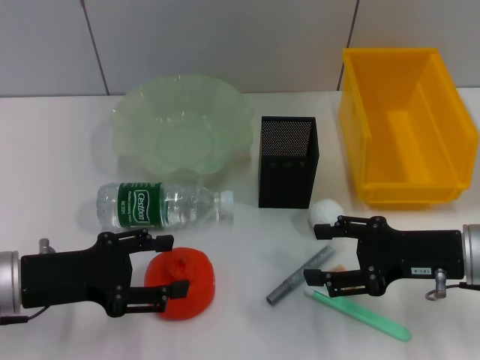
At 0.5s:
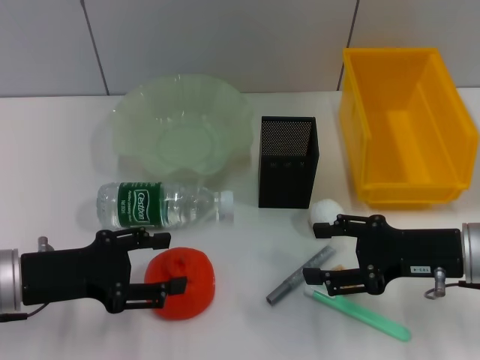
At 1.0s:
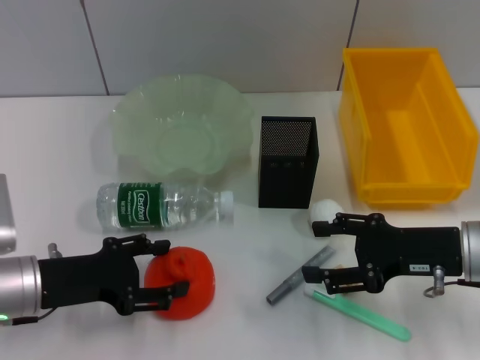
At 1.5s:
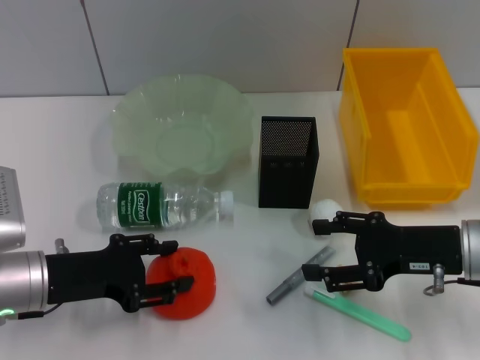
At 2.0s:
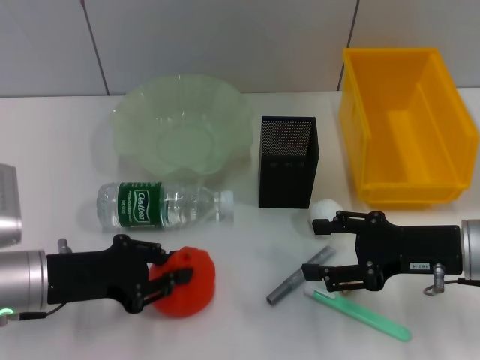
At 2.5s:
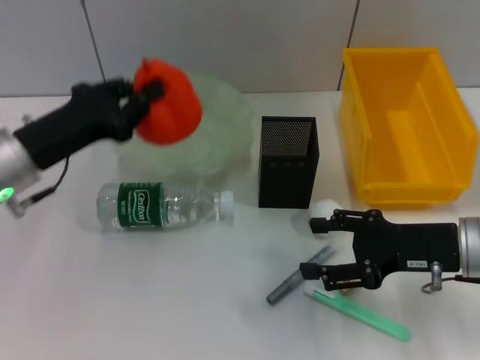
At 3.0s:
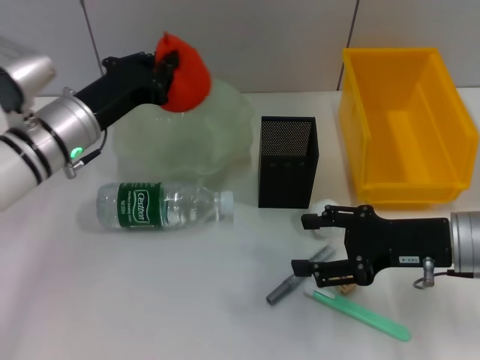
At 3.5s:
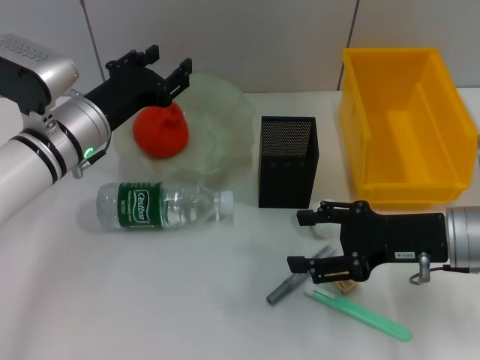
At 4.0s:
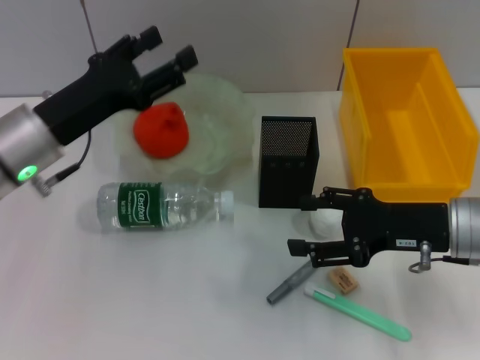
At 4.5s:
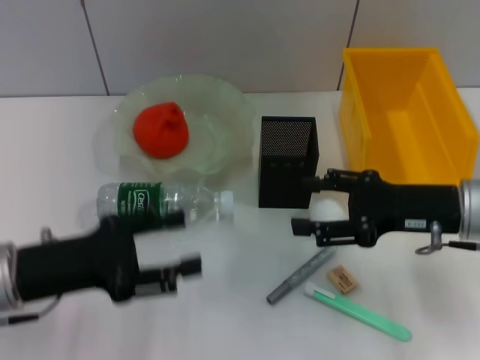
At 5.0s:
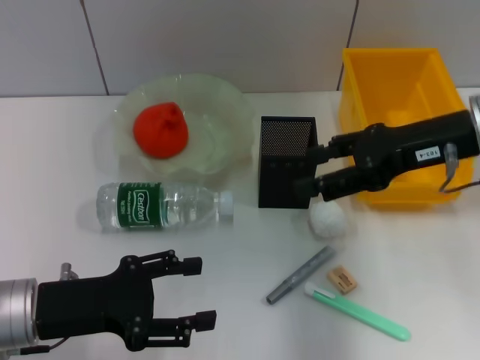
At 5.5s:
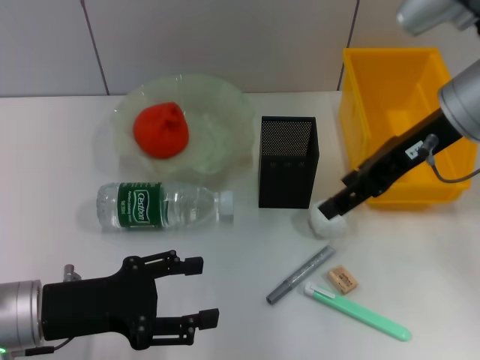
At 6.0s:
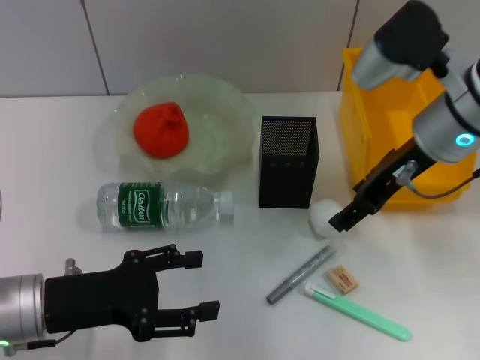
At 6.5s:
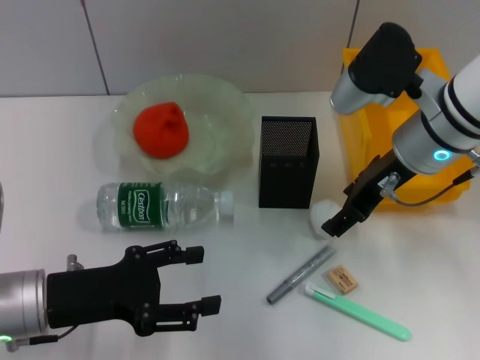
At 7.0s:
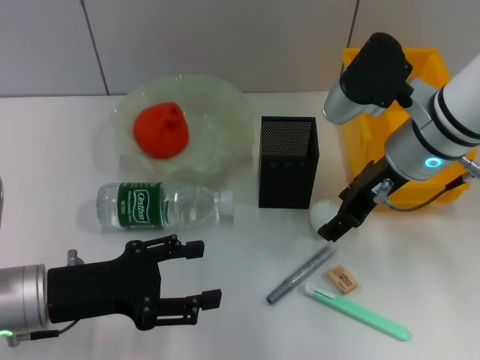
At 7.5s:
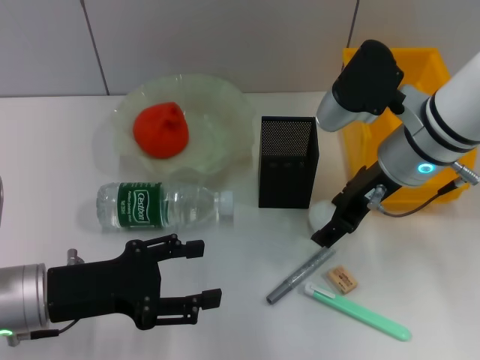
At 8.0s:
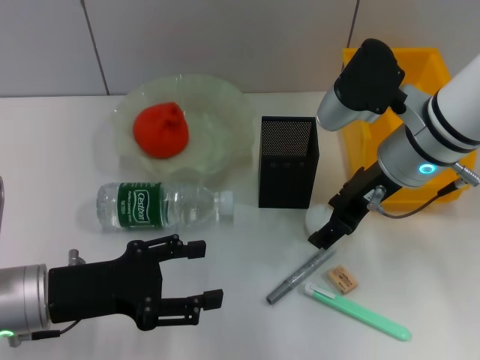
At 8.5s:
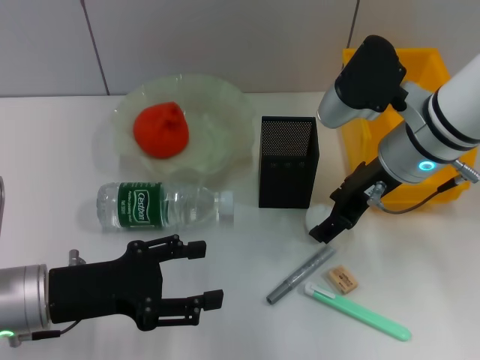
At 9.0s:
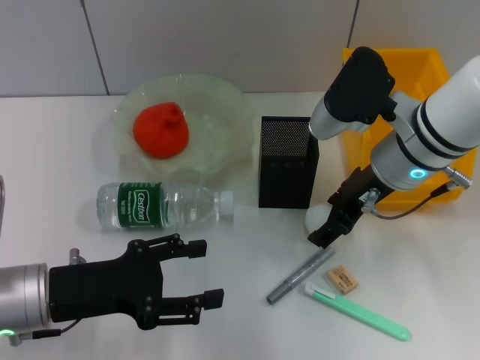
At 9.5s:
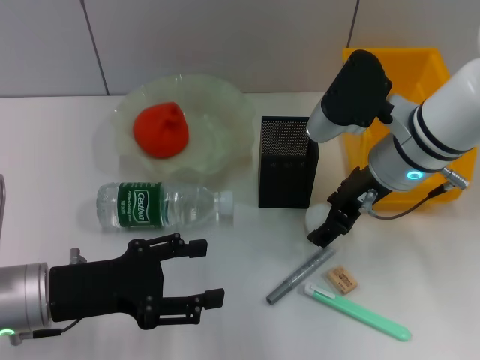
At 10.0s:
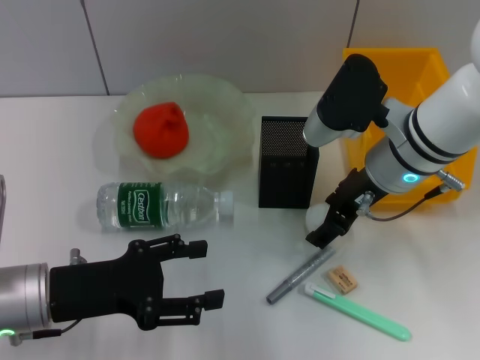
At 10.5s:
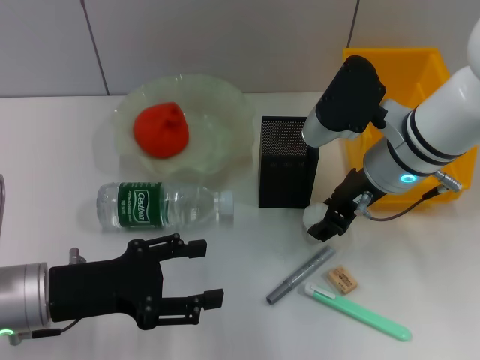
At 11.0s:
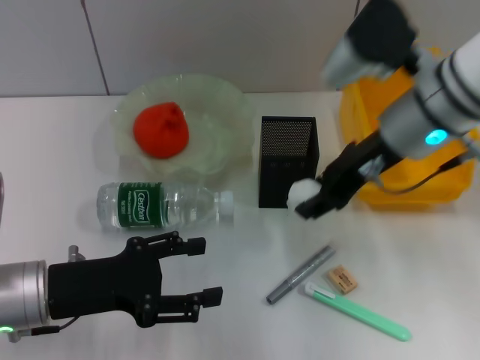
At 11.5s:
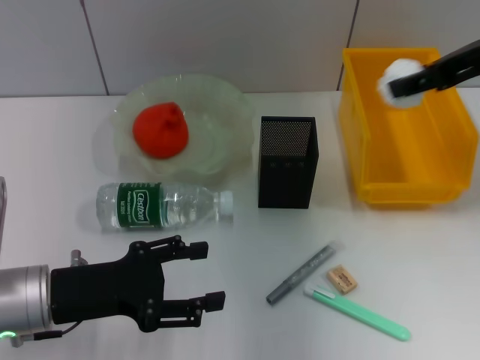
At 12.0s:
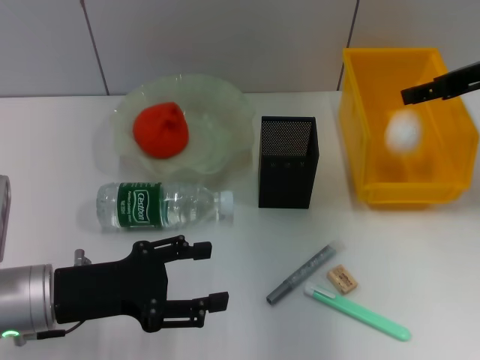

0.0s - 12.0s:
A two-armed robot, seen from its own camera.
Step, 0.0s - 1.5s: Grab the orange with the left hand.
Step, 2.0s - 3.5s: Place the orange into the fruit bowl with the left hand.
Step, 4.0s - 10.5s: Grab the paper ball with the right hand.
0.0s - 2.0s: The left gripper closes up.
2.0s - 4.0s: The left gripper moves forward and upward, roughly 10 cm, and opens its fingers.
4.0s - 6.0s: The right gripper goes roughly 15 cm upward, forward and to the left. The left gripper is displaced backward and downward by some 10 cm.
6.0s - 10.0s: The grippers stay close to where they were, moving slightly.
10.0s - 12.0s: The right gripper travels to the right and upward by approximately 15 cm.

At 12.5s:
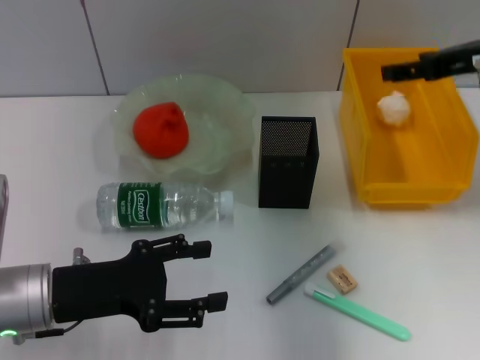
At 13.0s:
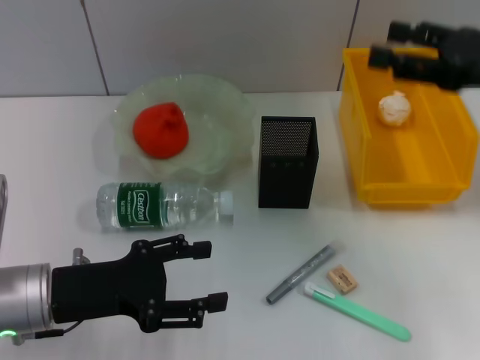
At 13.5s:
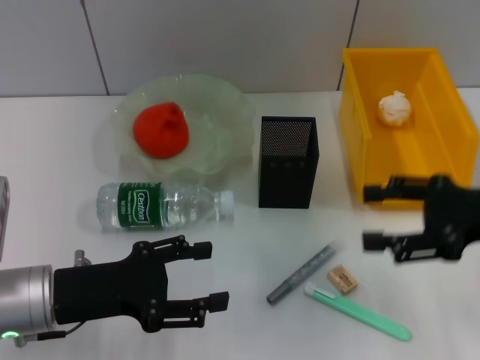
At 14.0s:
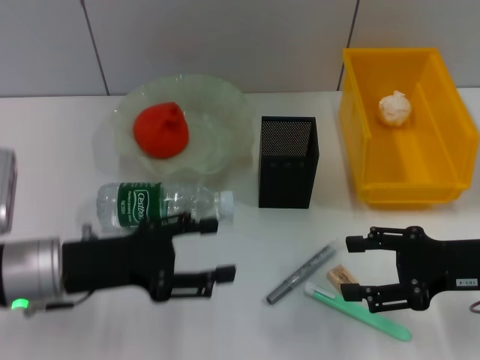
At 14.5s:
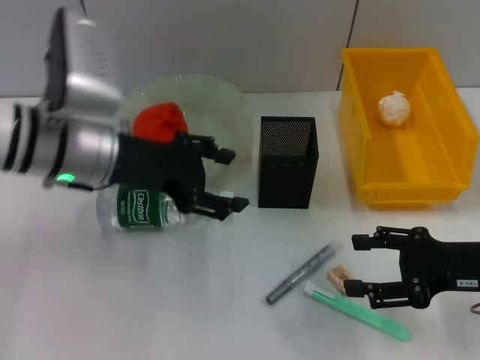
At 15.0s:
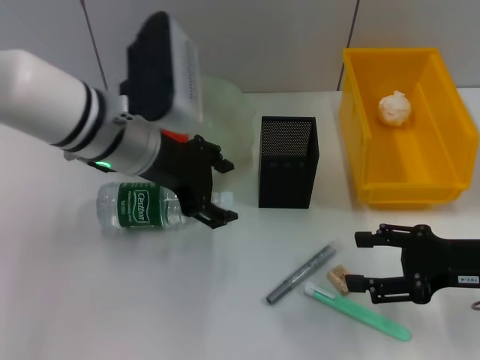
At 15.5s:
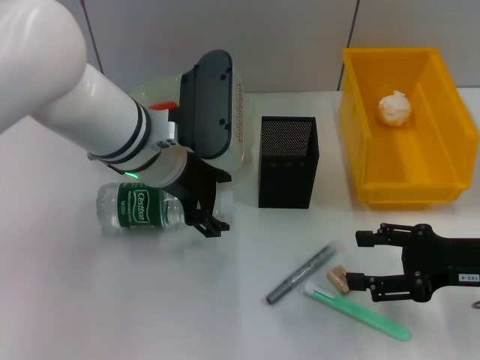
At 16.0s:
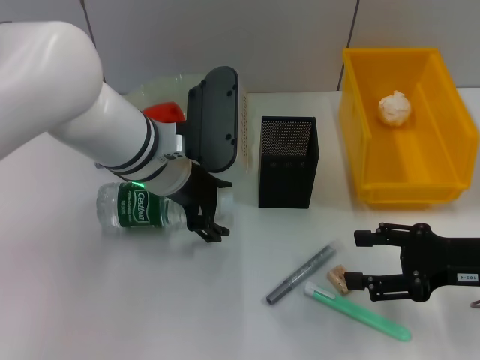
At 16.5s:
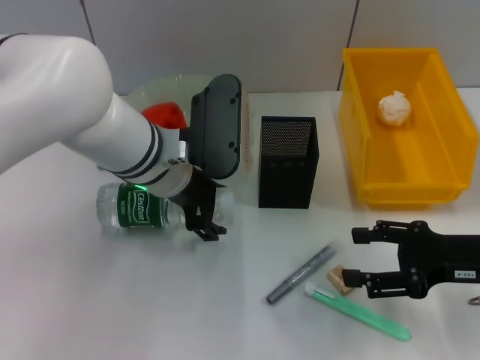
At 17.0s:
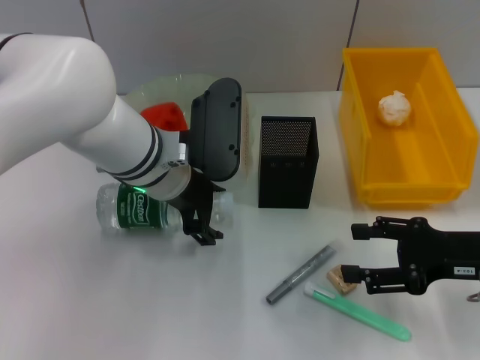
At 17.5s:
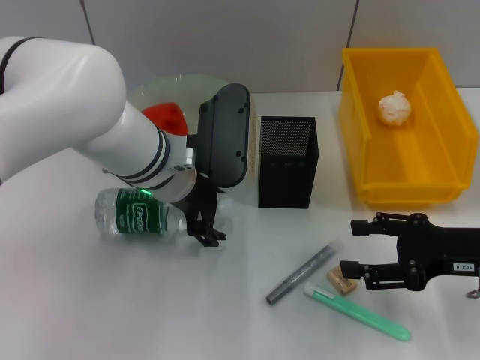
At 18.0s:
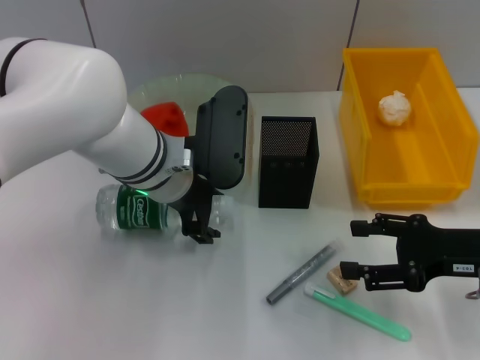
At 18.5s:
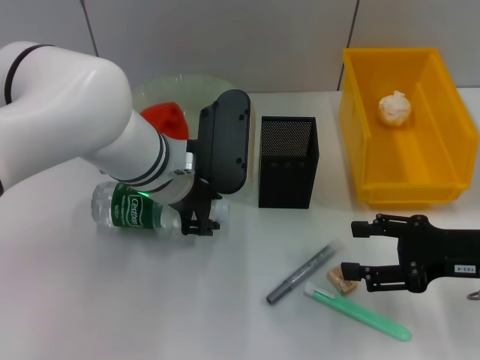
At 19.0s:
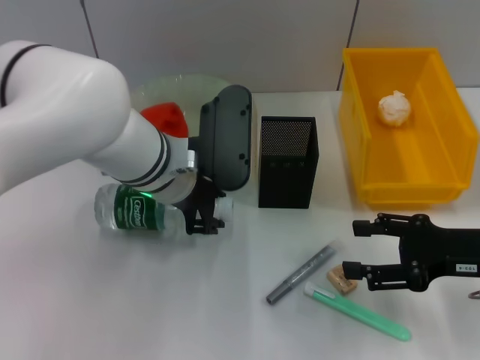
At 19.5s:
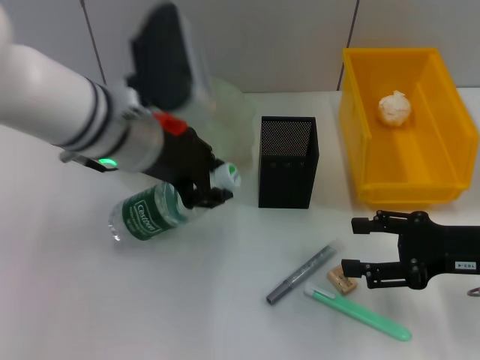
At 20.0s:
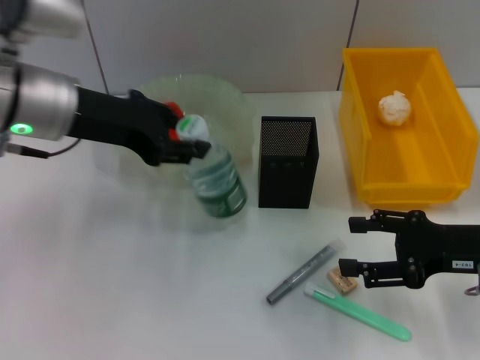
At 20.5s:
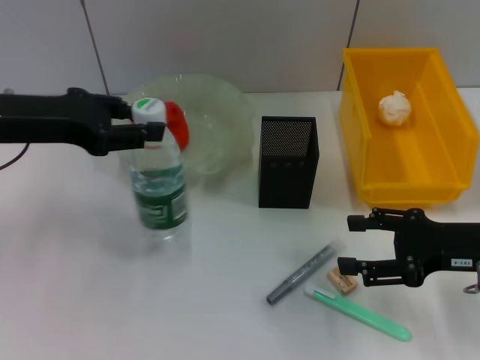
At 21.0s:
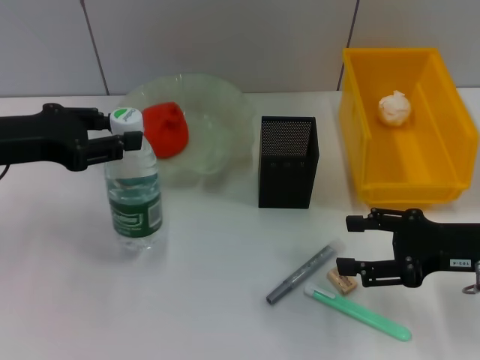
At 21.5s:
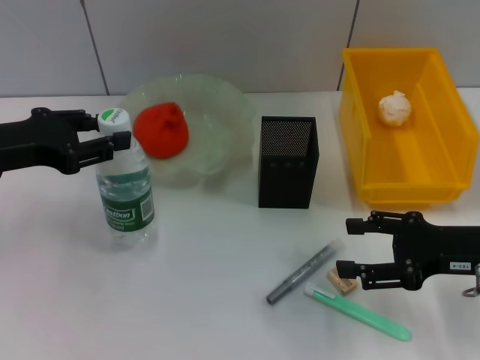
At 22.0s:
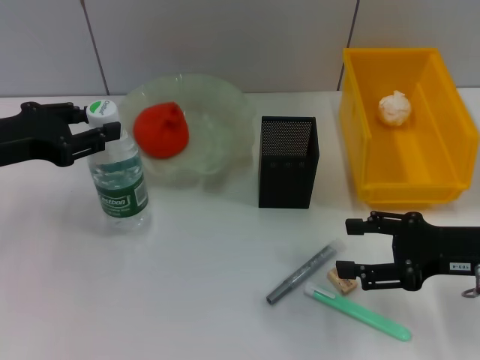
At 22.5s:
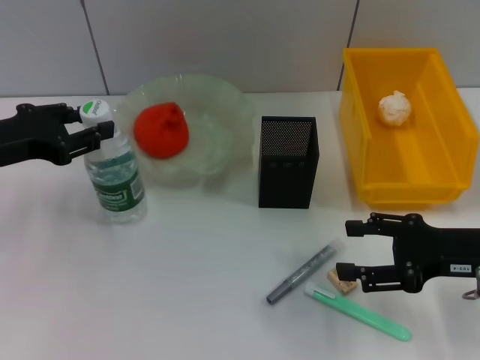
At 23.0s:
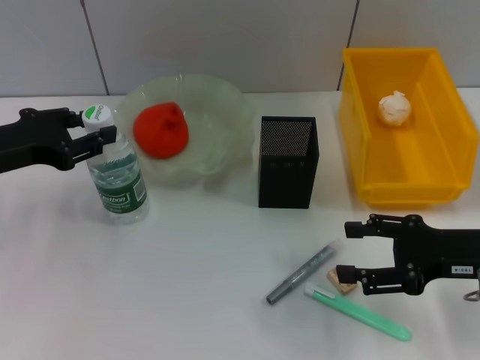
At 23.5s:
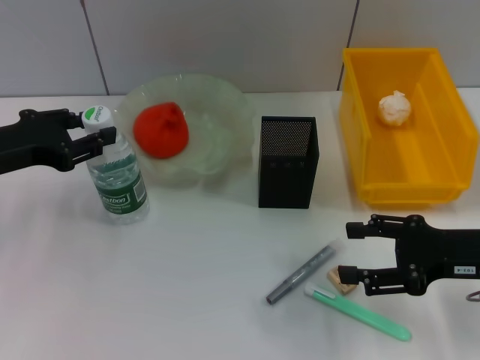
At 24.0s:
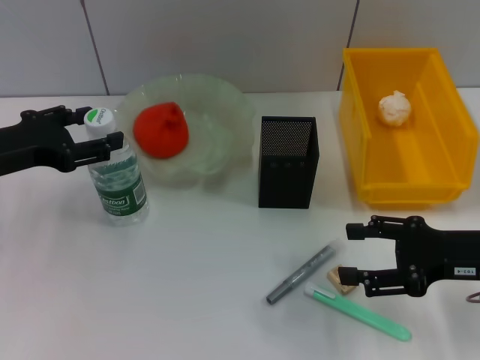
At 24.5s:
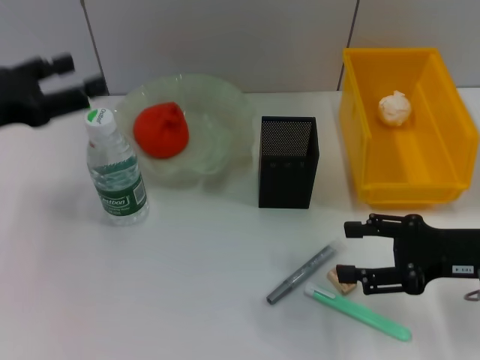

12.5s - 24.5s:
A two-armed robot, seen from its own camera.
Step, 12.5s - 18.5s: Grab the water bottle with the left hand.
Step, 19.0s - 24.0s: Place the water bottle on the table with the left hand.
12.5s - 14.5s: The right gripper shifts approximately 20 cm downward and backward, while the left gripper shifts approximately 15 cm forward, upward and to the right.
14.5s - 16.5s: The left gripper is displaced to the right by some 10 cm.
16.5s - 18.5s: The left gripper closes.
18.5s - 20.5s: The left gripper moves to the left, some 20 cm.
20.5s - 22.5s: The left gripper moves about 5 cm.
22.5s - 24.5s: The left gripper opens.

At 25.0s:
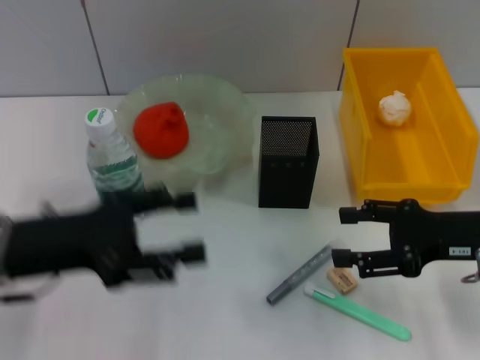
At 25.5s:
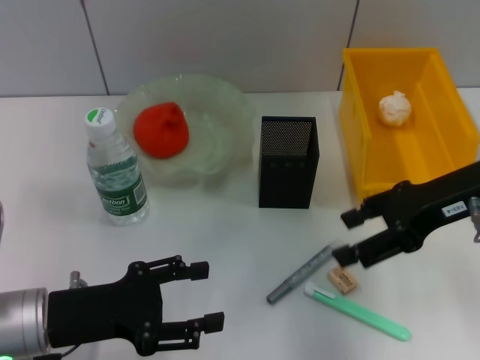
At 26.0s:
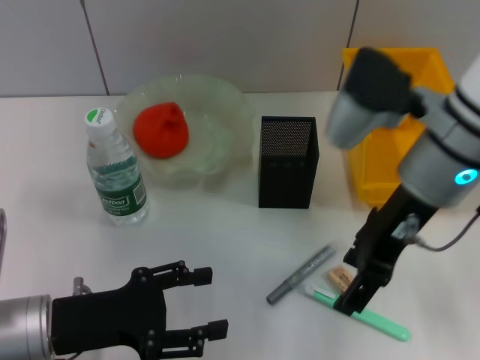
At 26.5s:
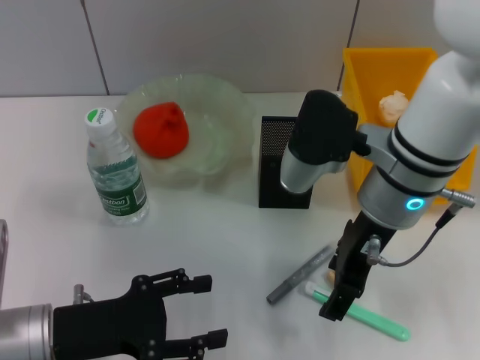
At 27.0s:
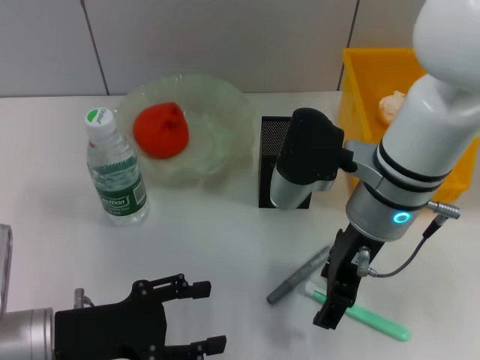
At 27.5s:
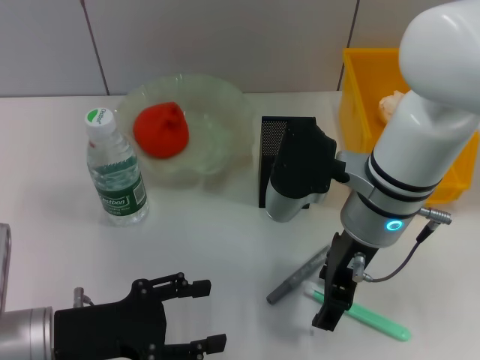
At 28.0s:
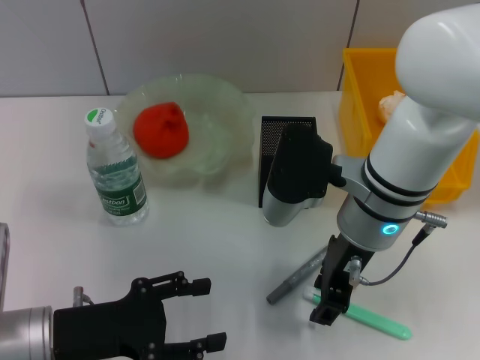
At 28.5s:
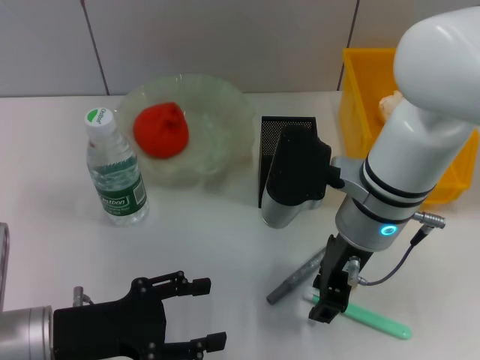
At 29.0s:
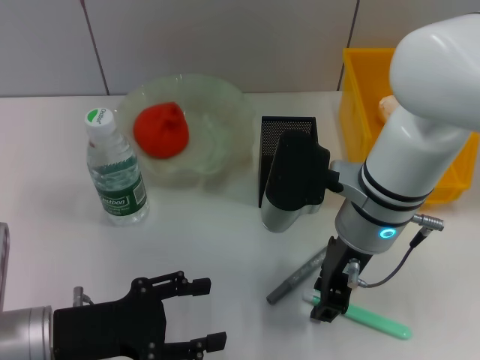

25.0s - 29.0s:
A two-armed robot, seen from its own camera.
25.0s - 27.0s: The right gripper is displaced to the left by about 15 cm, while the left gripper heads downward, covering roughly 10 cm.
27.0s - 29.0s: The right gripper closes.
